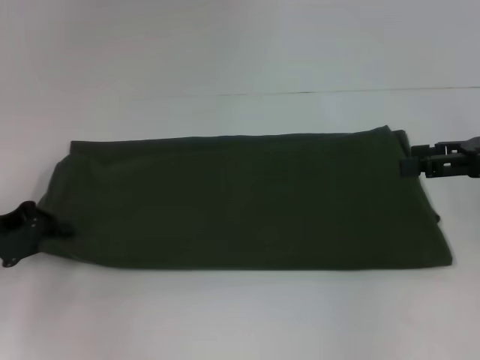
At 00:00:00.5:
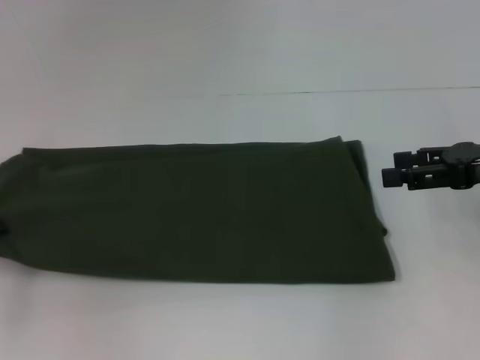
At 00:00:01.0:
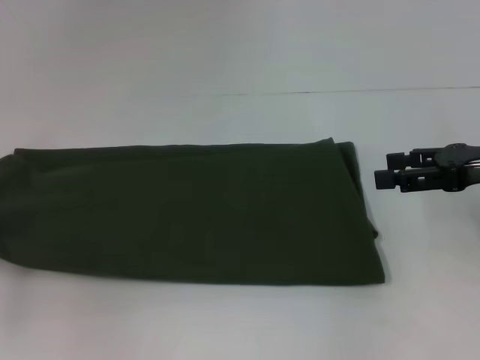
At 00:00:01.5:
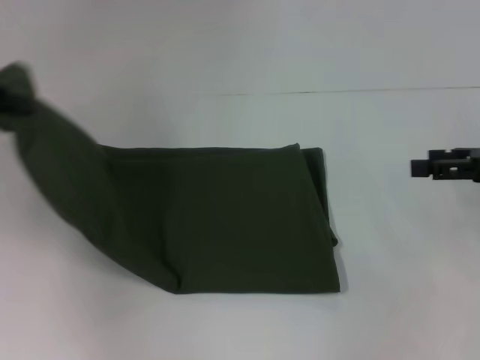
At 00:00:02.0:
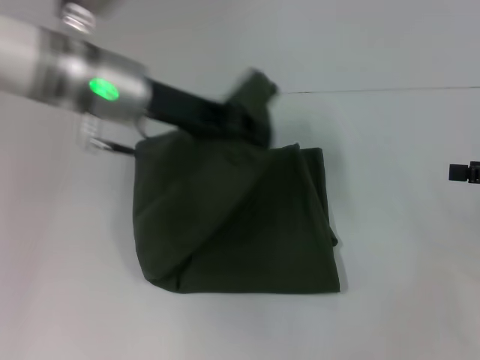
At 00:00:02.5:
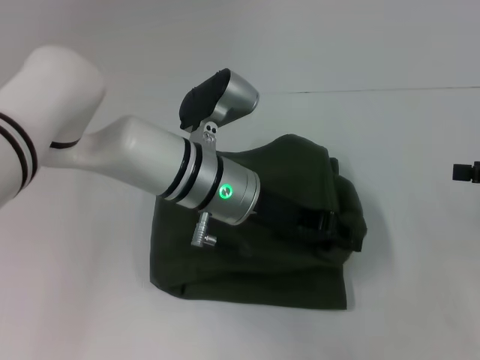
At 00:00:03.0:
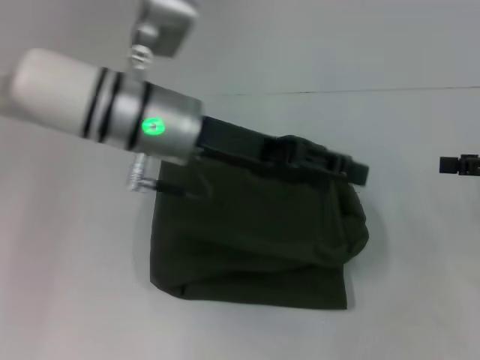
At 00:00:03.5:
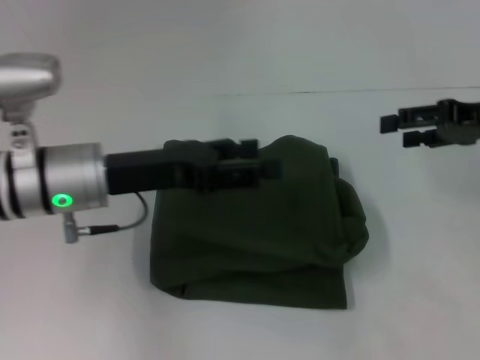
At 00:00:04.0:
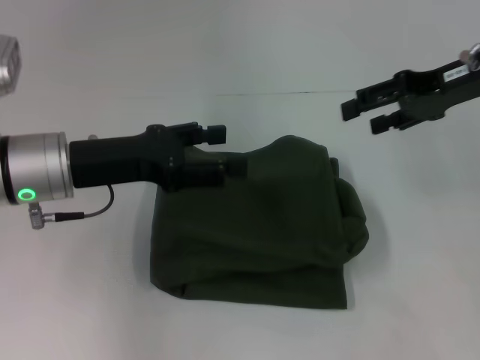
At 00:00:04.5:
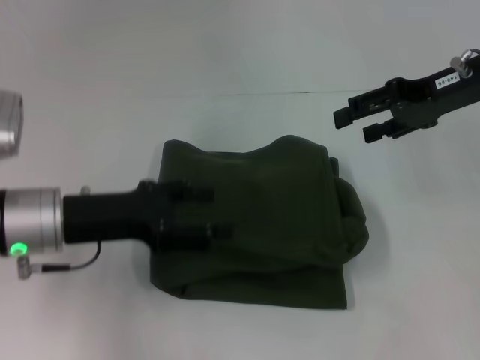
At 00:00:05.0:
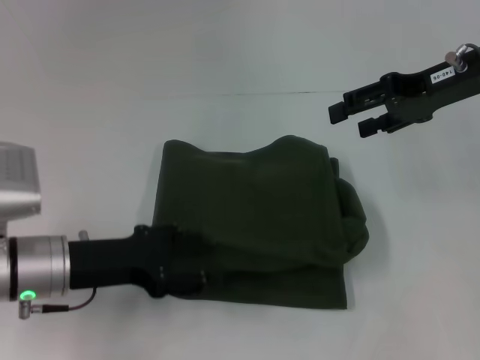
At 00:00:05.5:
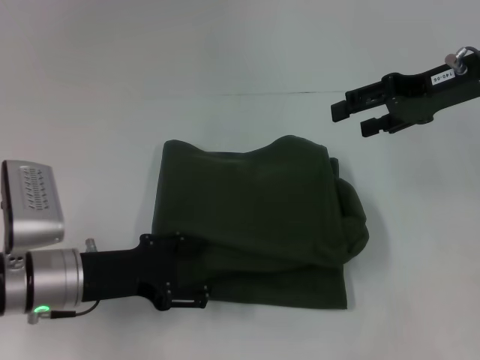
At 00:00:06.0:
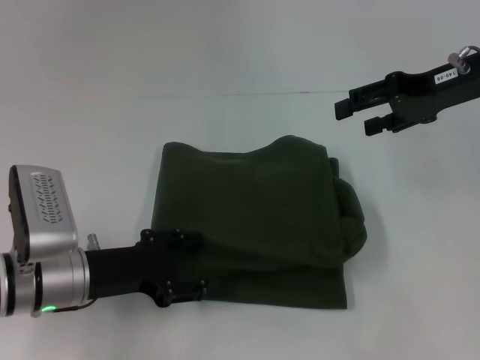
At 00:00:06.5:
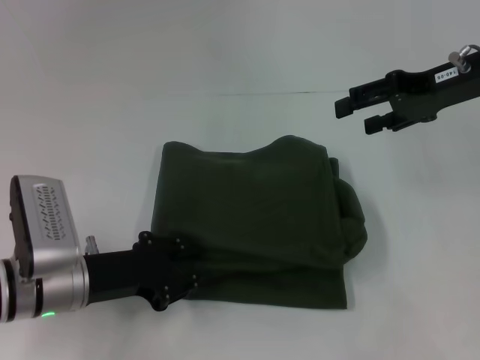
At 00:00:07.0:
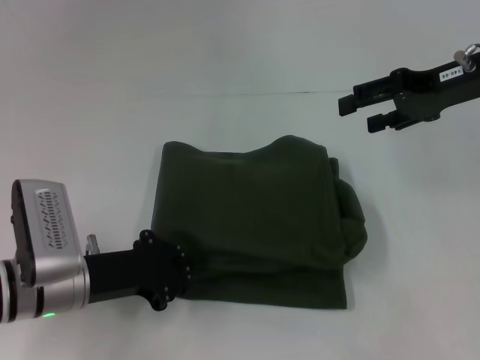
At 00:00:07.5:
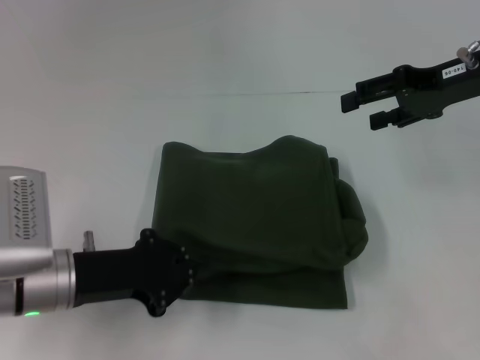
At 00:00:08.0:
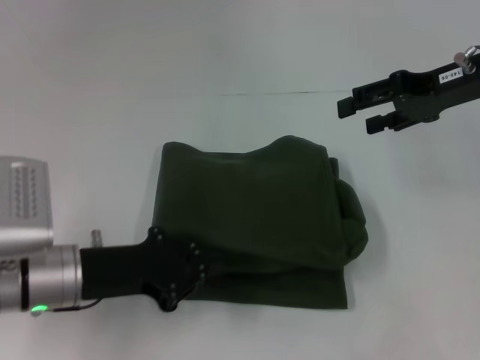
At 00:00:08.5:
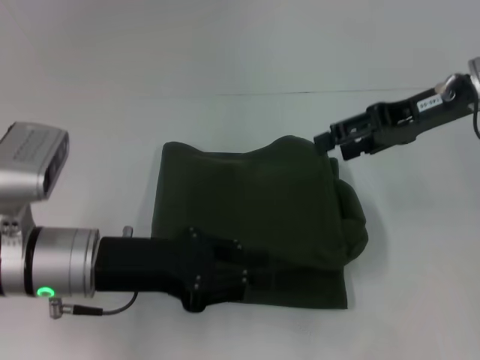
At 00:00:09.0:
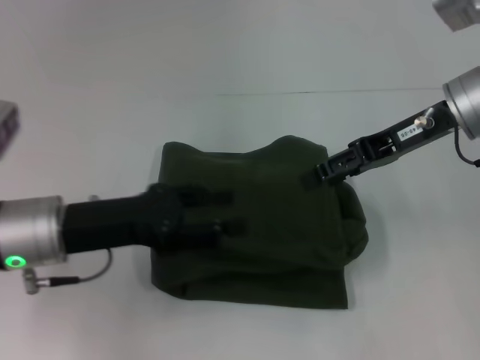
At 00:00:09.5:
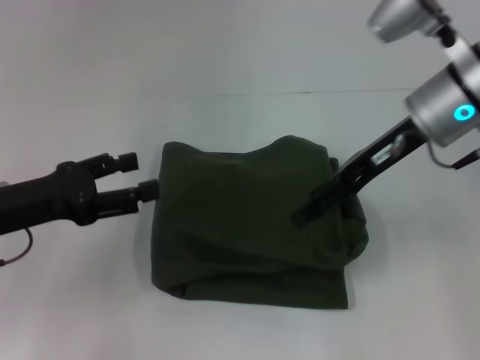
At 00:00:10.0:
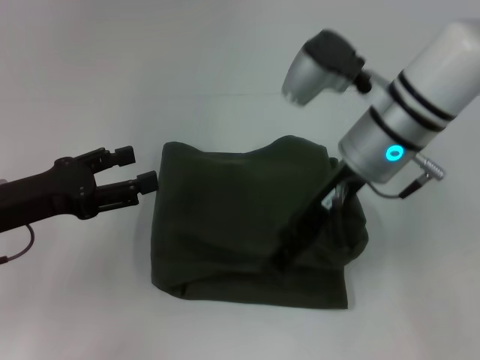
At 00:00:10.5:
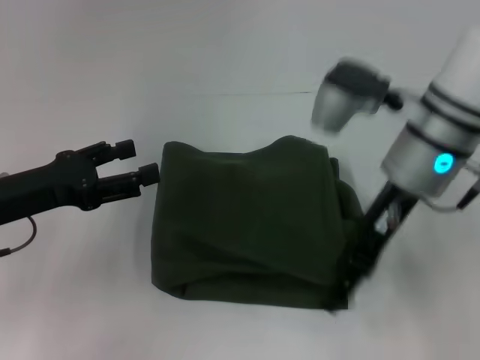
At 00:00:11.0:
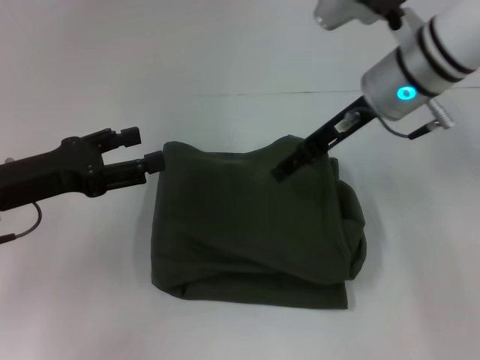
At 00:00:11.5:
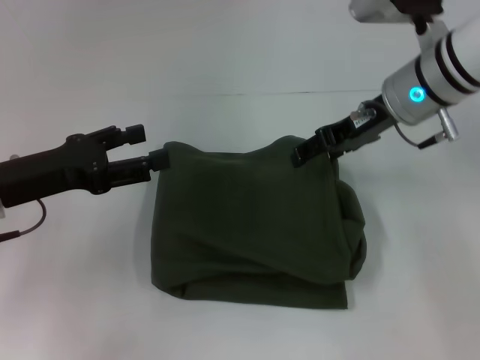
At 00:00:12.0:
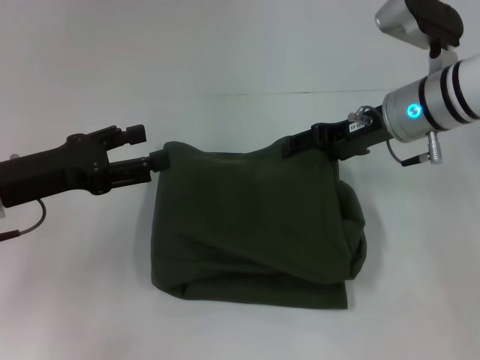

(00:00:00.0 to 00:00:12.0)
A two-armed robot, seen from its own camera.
Step, 00:00:00.0 - 00:00:03.0: Fold the clothes with your left hand.
00:00:00.0 - 00:00:02.0: The left gripper goes about 25 cm to the right, upward and forward; the right gripper heads to the right, covering some 5 cm.
00:00:02.0 - 00:00:04.0: The left gripper moves to the left, backward and downward, about 10 cm, and opens its fingers, while the right gripper shifts roughly 20 cm to the left, forward and upward.
00:00:04.0 - 00:00:06.0: The left gripper heads downward, covering roughly 10 cm.
00:00:06.0 - 00:00:08.0: The left gripper closes up.
00:00:08.0 - 00:00:10.0: The right gripper goes about 15 cm to the left. The left gripper goes about 5 cm to the left, and opens.
00:00:10.0 - 00:00:12.0: The right gripper shifts about 5 cm to the right.

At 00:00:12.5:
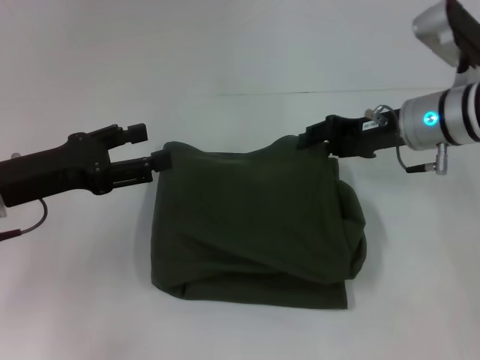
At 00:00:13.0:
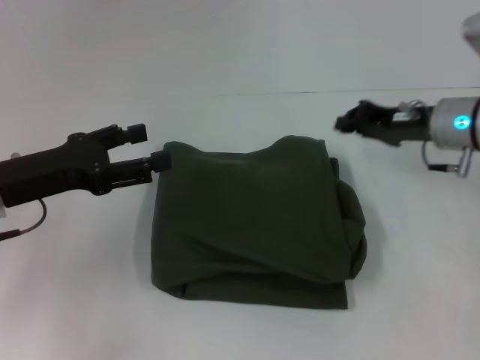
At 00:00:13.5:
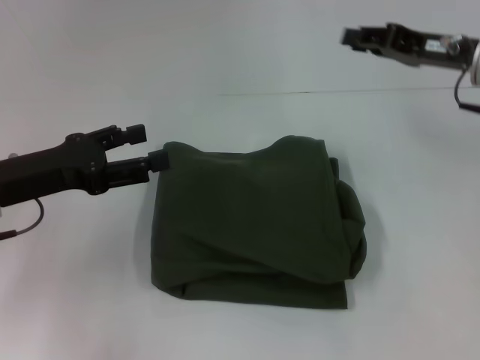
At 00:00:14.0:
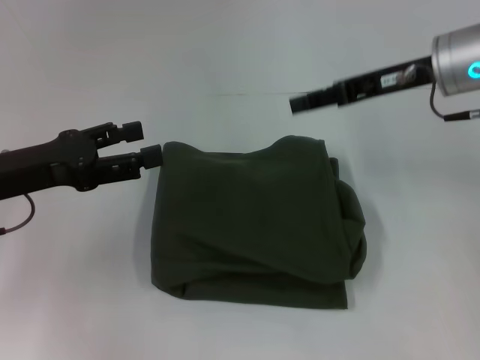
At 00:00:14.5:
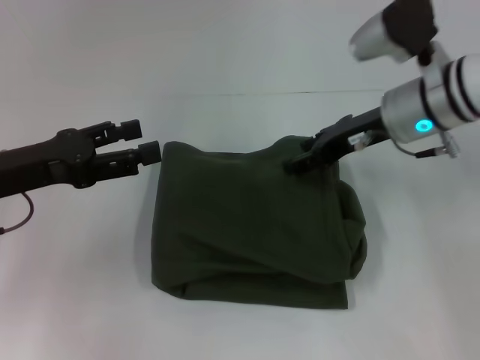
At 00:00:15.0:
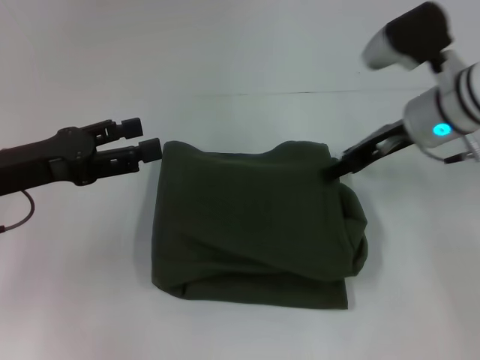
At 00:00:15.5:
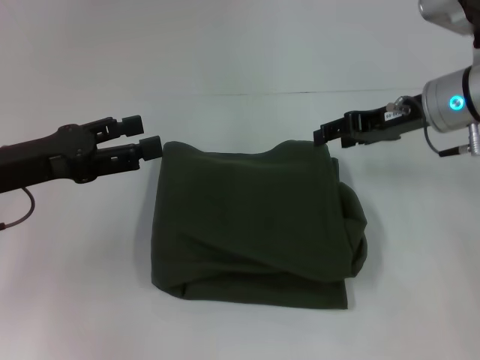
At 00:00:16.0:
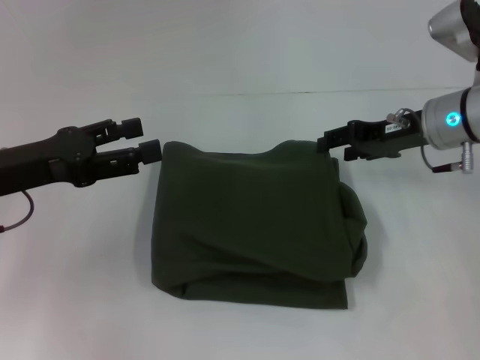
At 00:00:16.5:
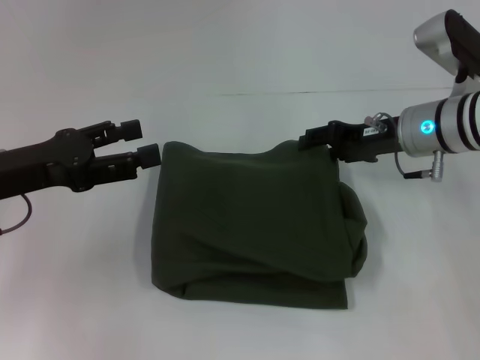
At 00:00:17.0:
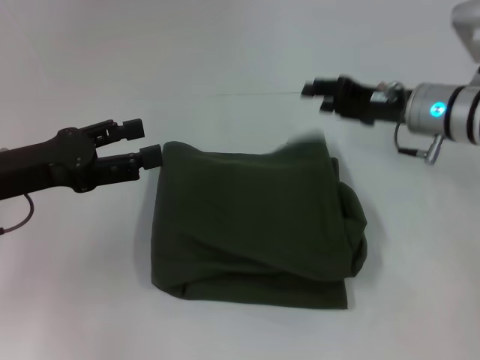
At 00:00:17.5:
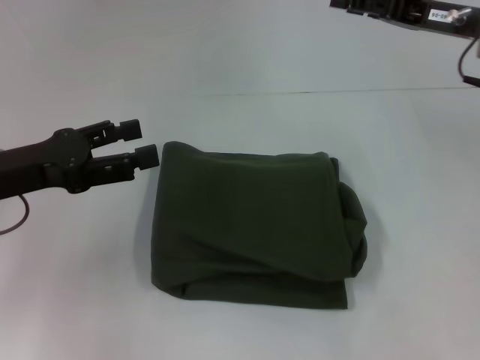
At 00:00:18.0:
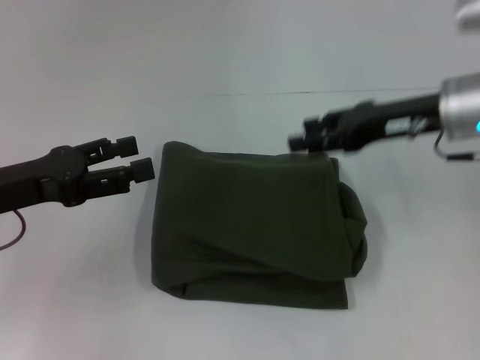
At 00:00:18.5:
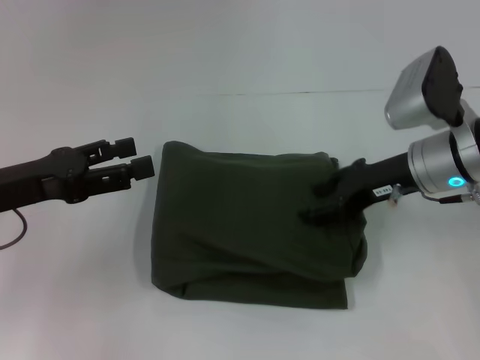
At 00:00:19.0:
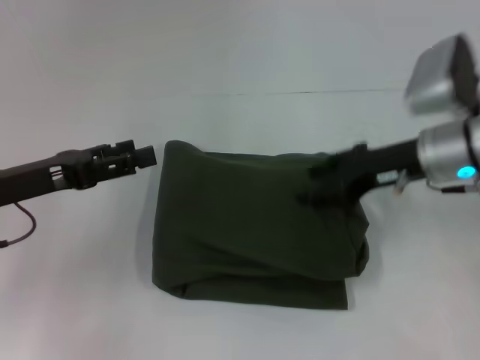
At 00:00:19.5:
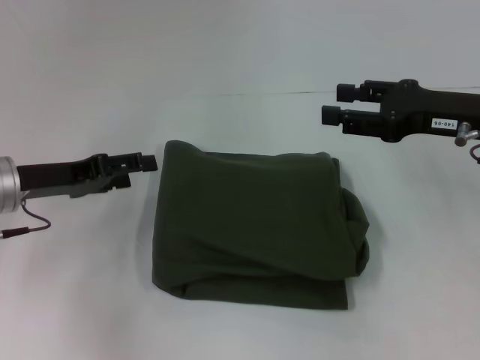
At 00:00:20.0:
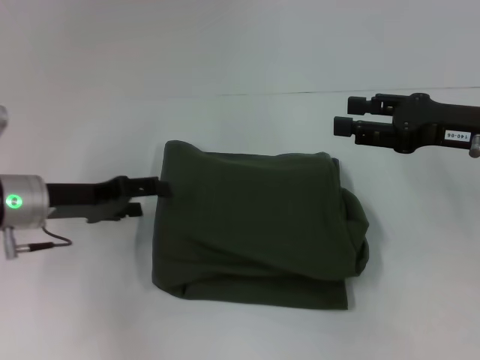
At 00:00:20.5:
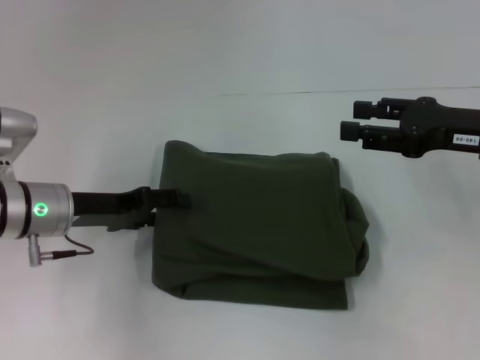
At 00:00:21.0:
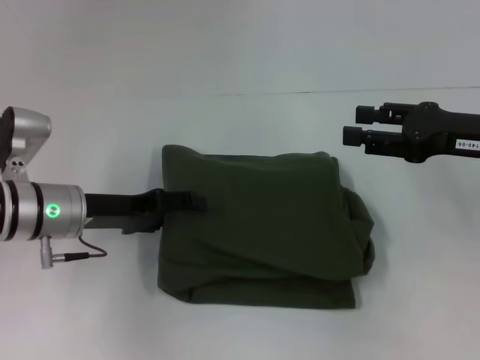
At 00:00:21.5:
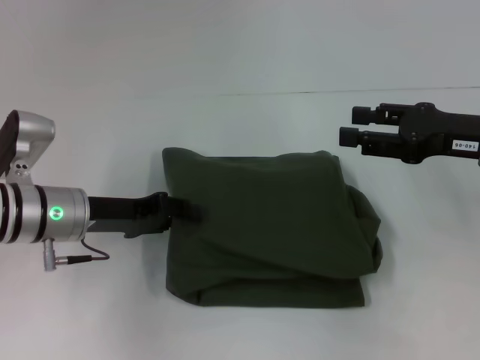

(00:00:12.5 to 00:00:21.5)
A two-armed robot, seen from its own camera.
00:00:12.5 - 00:00:14.5: The right gripper reaches approximately 5 cm to the right, then returns, and closes, then reopens.
00:00:14.5 - 00:00:17.0: The right gripper ends up about 5 cm from where it was.
00:00:17.0 - 00:00:19.5: The right gripper swings up and down, some 10 cm each way, with 2 reversals. Meanwhile the left gripper moves about 5 cm.
00:00:19.5 - 00:00:21.5: The left gripper is displaced to the right by approximately 5 cm.

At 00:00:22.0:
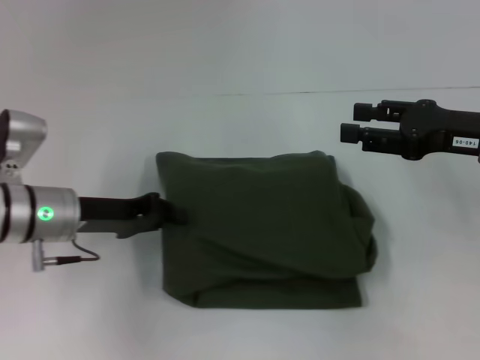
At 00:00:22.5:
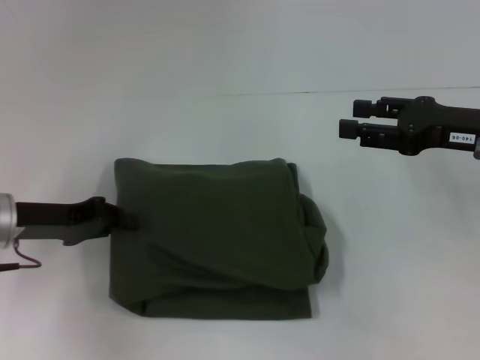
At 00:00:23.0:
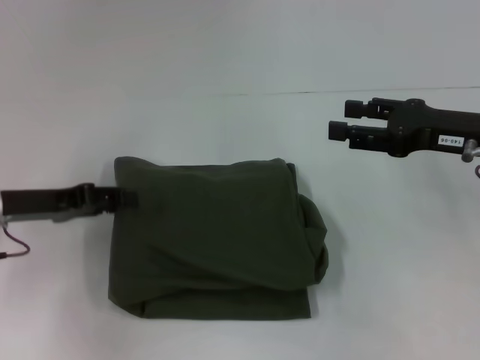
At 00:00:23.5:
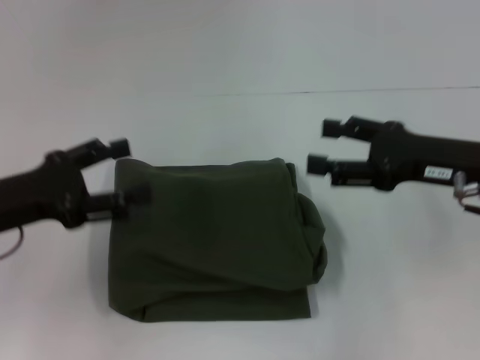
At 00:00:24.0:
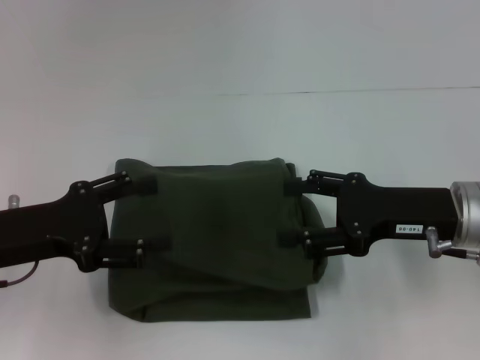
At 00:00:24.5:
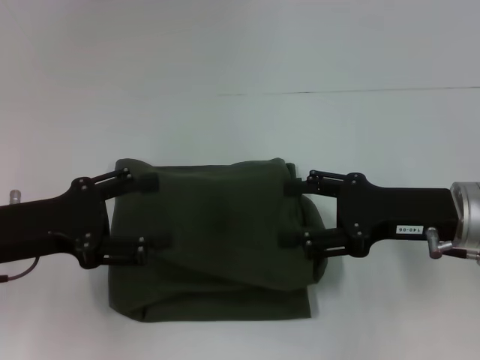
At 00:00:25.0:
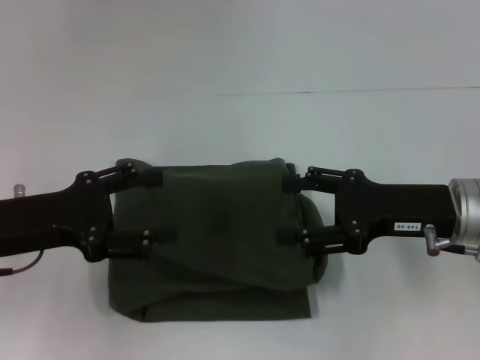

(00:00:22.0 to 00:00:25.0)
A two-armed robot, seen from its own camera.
00:00:22.0 - 00:00:23.5: The left gripper travels to the left and backward by about 10 cm, and opens up.
00:00:23.5 - 00:00:25.0: The grippers move only a little.
